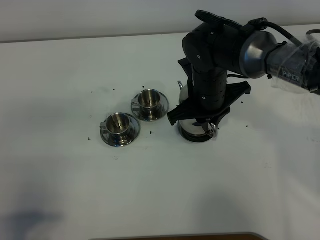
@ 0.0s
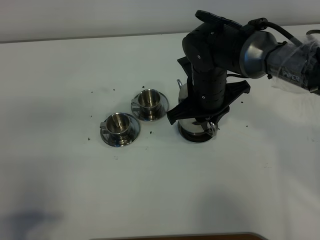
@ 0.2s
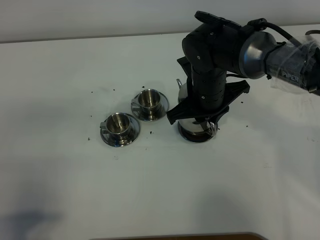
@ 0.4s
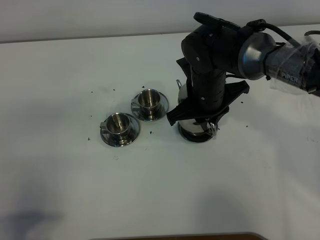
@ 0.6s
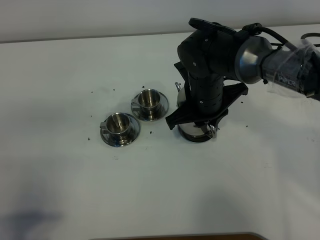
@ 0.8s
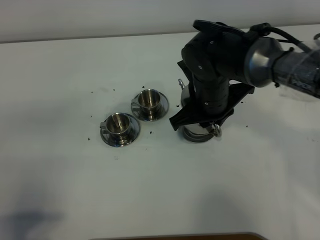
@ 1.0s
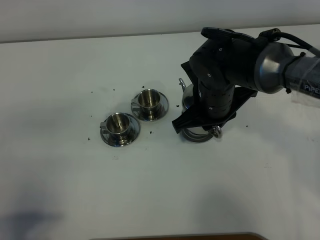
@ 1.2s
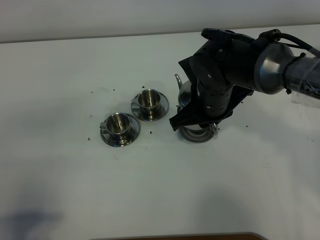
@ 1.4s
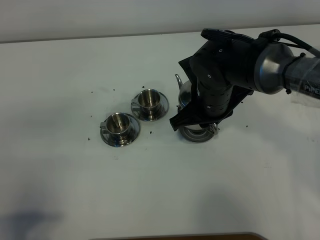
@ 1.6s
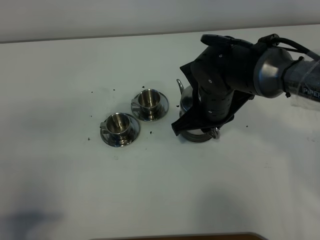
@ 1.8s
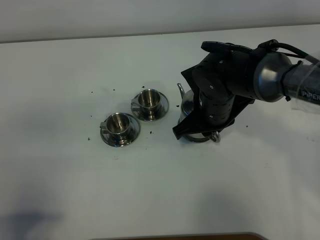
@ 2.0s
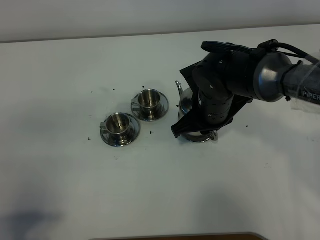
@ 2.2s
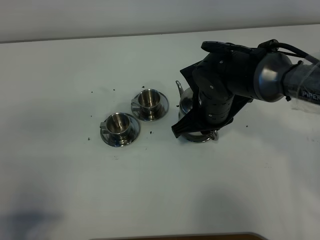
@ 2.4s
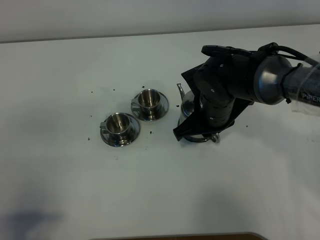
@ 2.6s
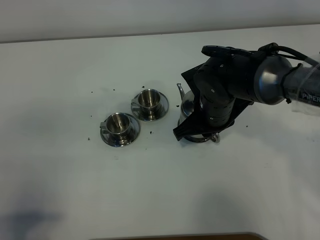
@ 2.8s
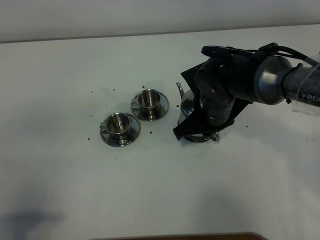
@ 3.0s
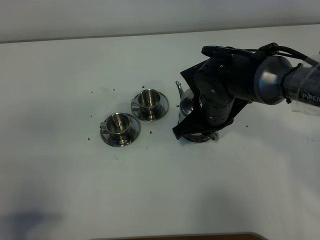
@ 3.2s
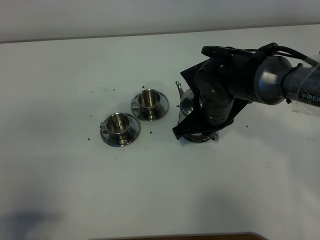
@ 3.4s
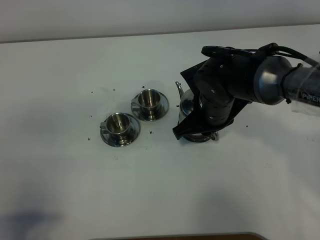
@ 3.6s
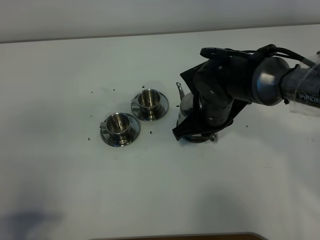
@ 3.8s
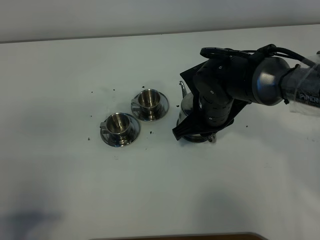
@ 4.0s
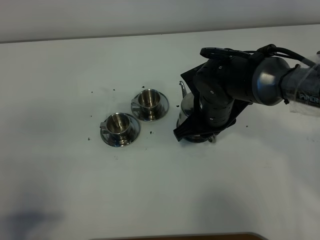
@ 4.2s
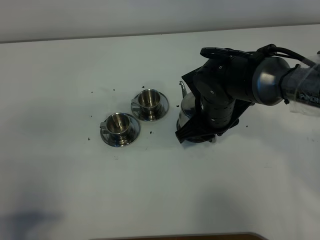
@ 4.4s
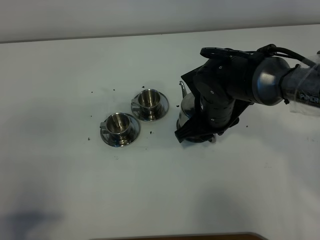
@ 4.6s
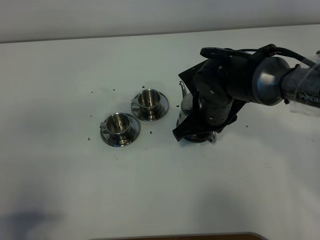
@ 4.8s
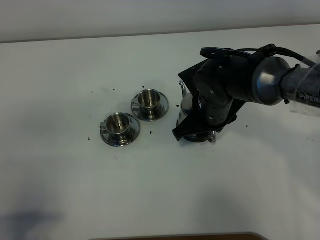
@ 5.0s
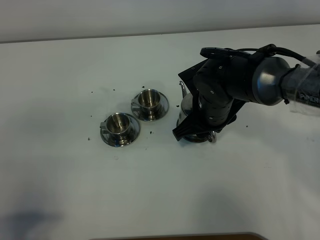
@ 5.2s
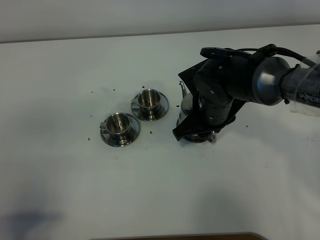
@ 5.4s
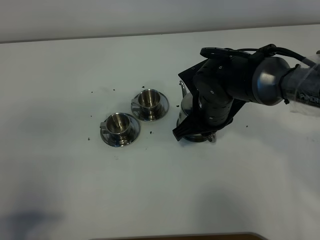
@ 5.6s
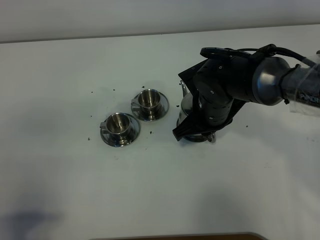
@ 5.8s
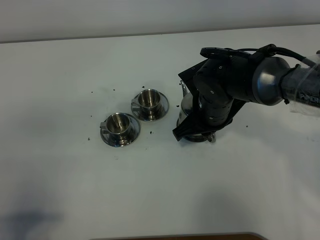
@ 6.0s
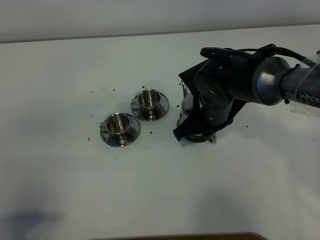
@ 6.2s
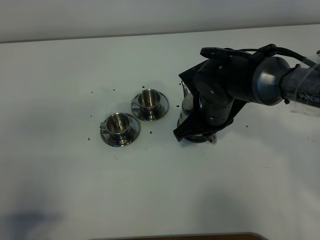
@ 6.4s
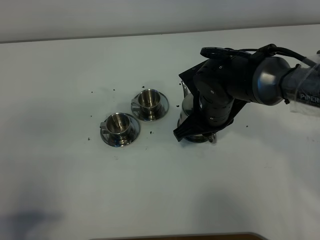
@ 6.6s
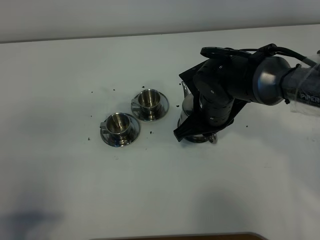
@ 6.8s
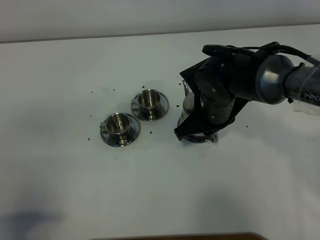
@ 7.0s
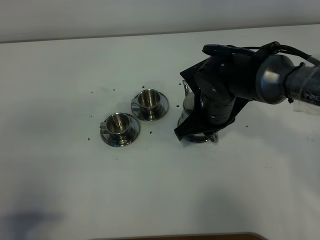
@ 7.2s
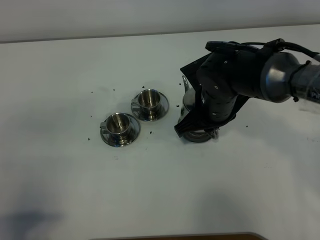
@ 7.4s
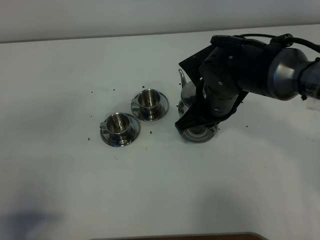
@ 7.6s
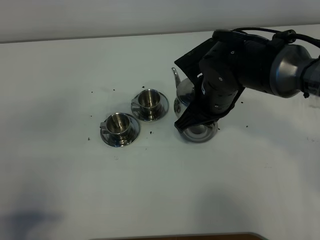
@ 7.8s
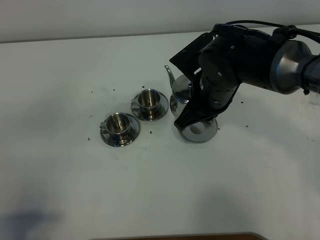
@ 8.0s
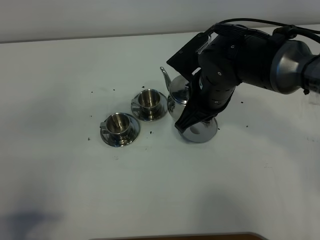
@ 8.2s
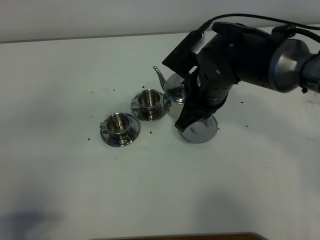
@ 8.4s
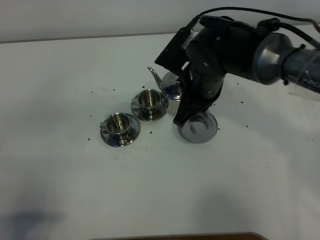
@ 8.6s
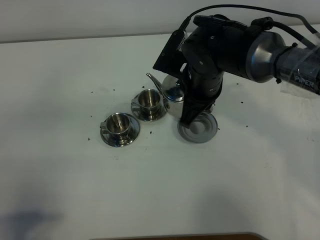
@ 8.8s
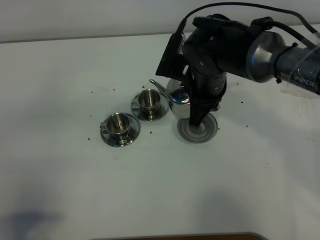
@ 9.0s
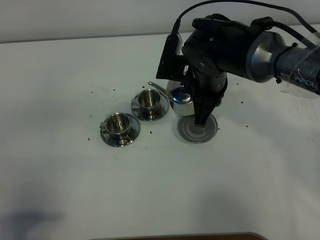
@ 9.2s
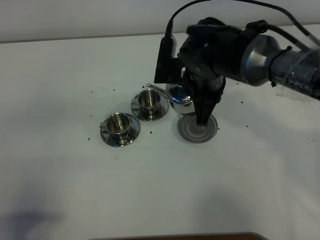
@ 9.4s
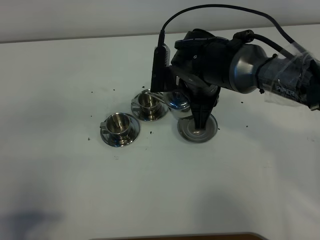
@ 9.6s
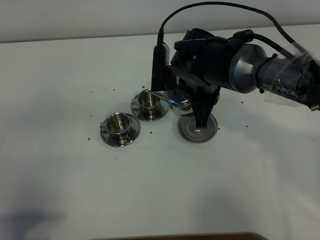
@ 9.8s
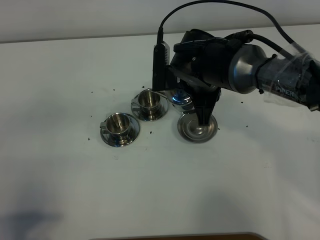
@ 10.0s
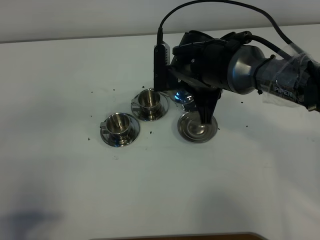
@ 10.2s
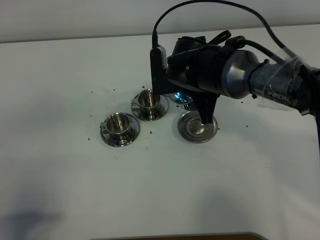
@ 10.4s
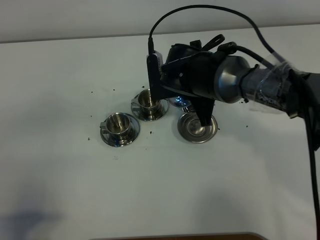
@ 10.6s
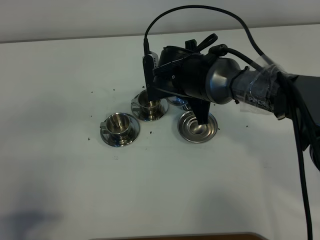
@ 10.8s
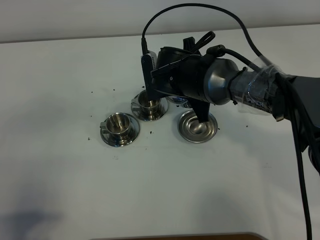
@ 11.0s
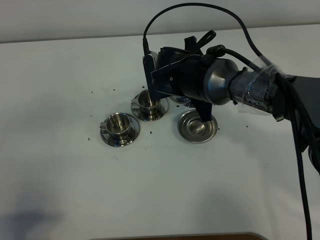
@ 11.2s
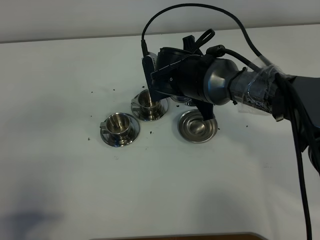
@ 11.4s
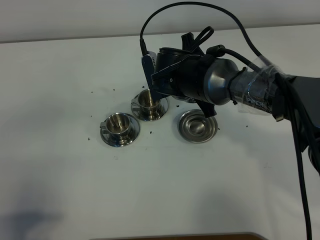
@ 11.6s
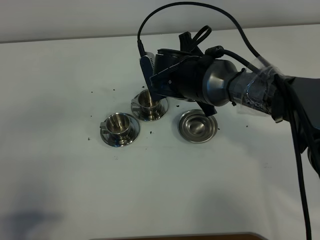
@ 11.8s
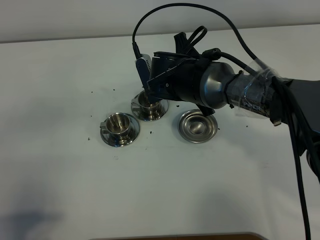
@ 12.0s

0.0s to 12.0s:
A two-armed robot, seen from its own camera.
Task of the whole recording: grasp the stainless steel teapot and pour the tea into the two stainless steel teacups one by one, put the stainless steel teapot back in its original place.
Step, 0.0s to 7.6s: Pick up the teapot with the right gripper.
0.0s to 3.0s: There are only small adjustments of the grippers.
3.0s to 4.4s: The right gripper opens up.
4.4s to 6.0s: The right gripper closes its fingers.
6.0s to 7.6s: There are only small adjustments of the grippers.
10.4s to 12.0s: The grippers move only a little.

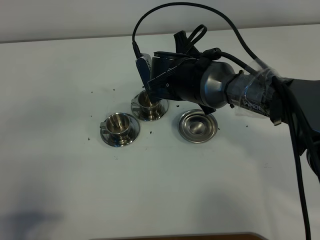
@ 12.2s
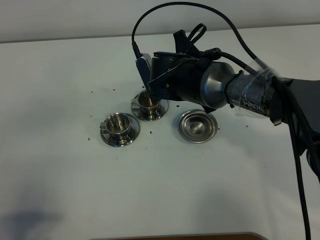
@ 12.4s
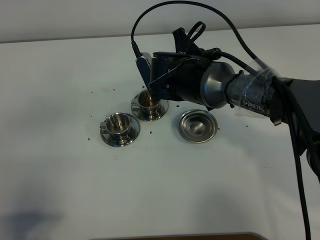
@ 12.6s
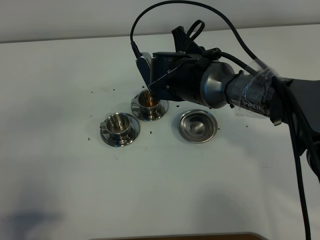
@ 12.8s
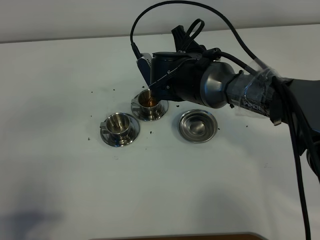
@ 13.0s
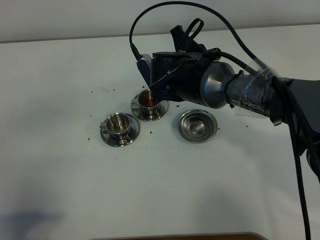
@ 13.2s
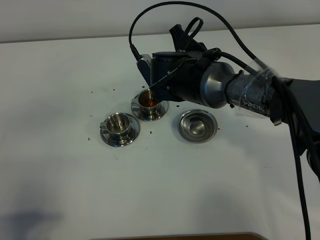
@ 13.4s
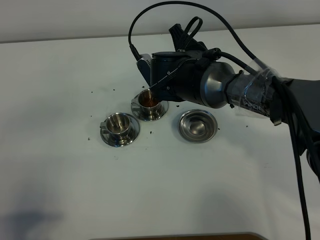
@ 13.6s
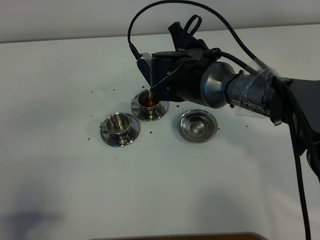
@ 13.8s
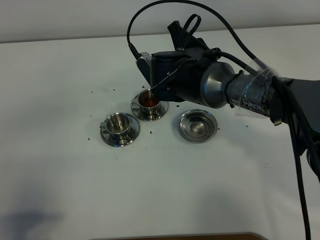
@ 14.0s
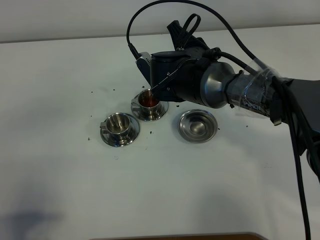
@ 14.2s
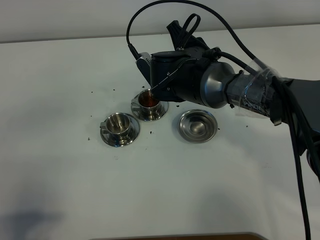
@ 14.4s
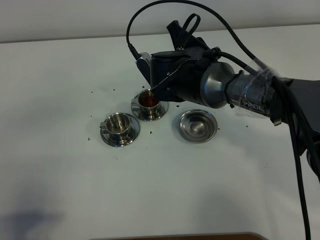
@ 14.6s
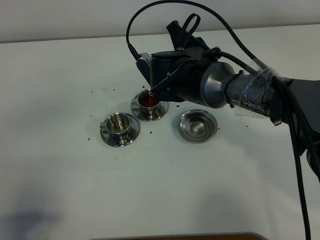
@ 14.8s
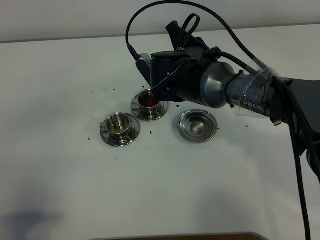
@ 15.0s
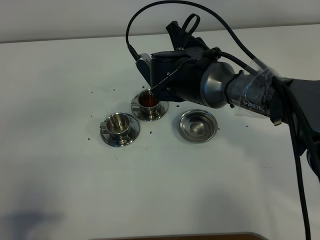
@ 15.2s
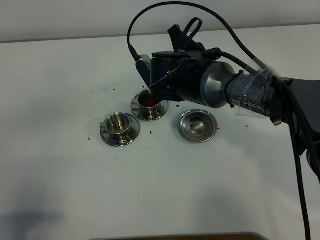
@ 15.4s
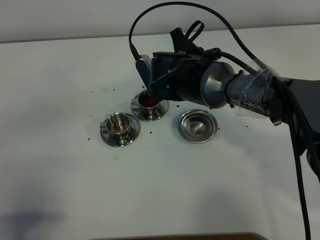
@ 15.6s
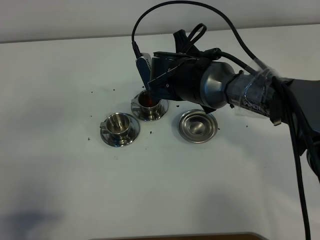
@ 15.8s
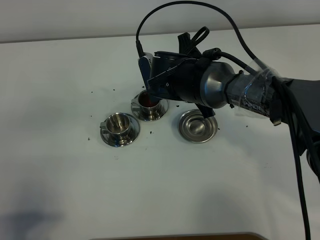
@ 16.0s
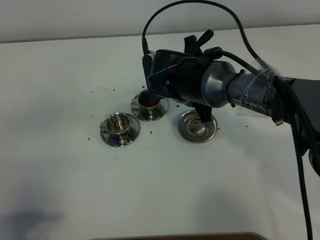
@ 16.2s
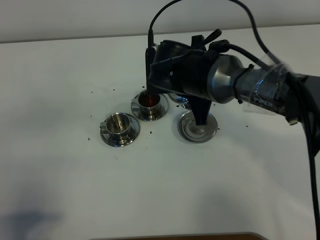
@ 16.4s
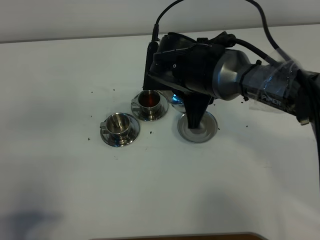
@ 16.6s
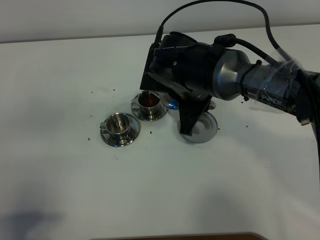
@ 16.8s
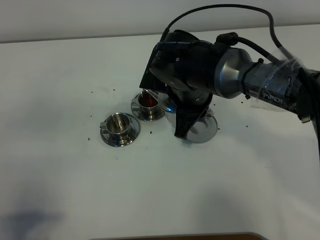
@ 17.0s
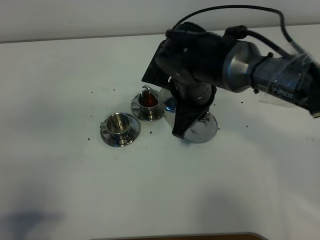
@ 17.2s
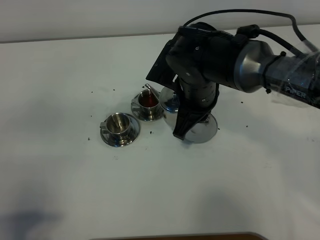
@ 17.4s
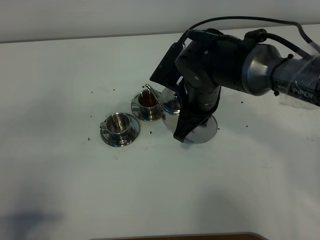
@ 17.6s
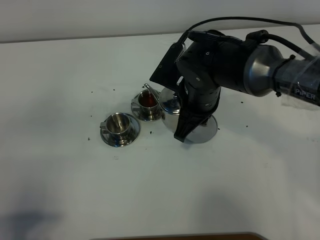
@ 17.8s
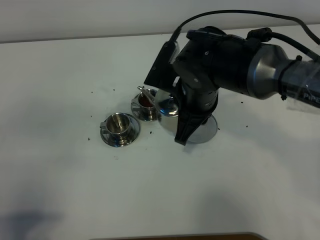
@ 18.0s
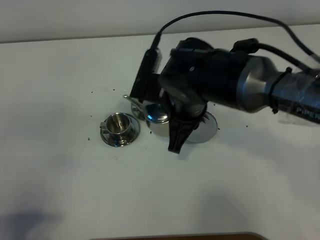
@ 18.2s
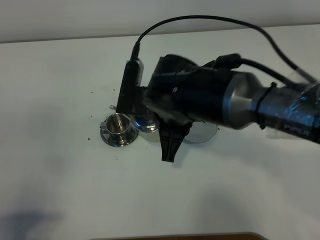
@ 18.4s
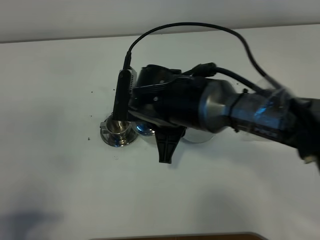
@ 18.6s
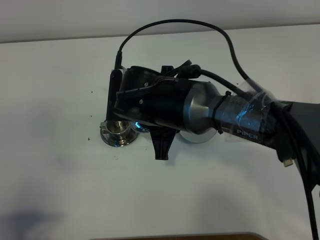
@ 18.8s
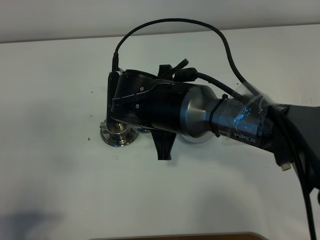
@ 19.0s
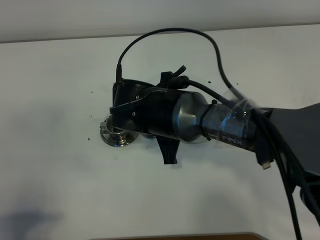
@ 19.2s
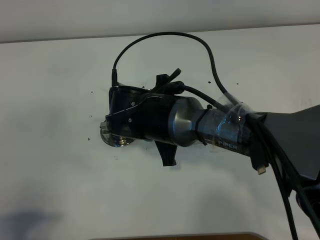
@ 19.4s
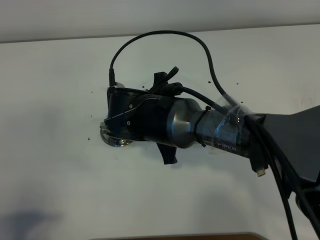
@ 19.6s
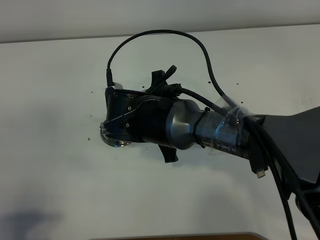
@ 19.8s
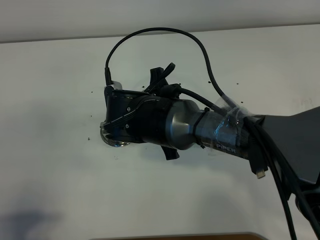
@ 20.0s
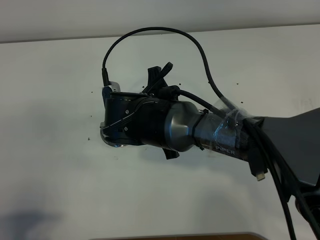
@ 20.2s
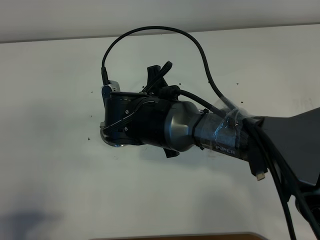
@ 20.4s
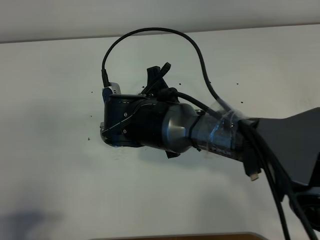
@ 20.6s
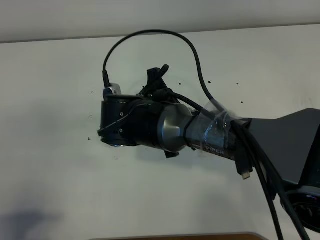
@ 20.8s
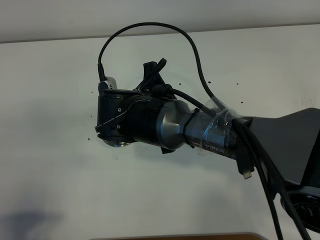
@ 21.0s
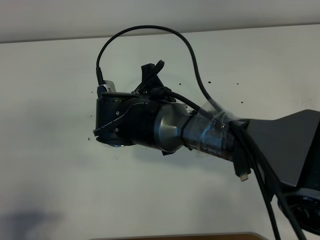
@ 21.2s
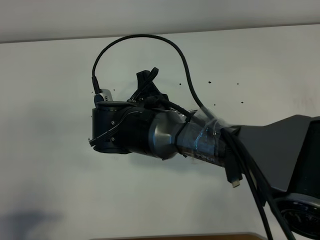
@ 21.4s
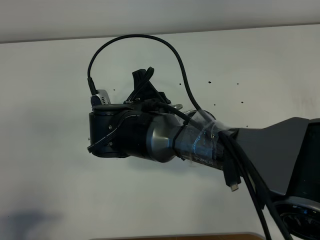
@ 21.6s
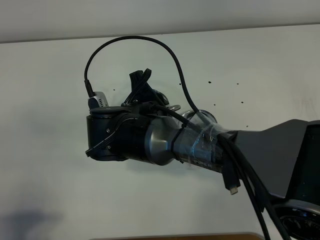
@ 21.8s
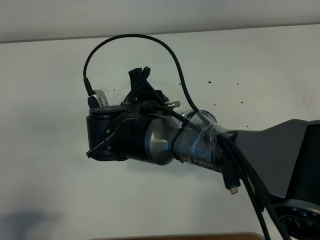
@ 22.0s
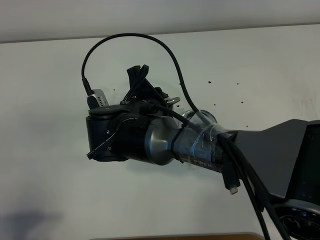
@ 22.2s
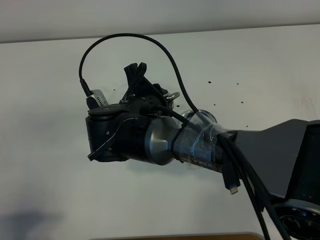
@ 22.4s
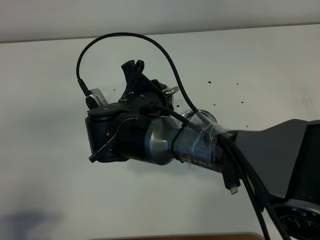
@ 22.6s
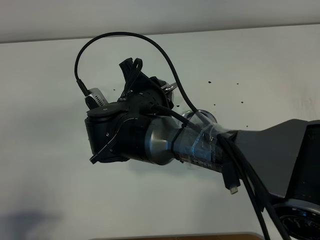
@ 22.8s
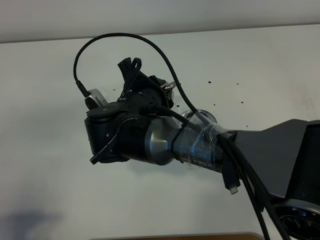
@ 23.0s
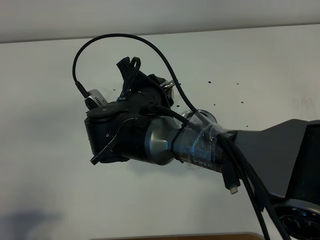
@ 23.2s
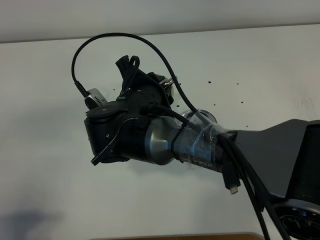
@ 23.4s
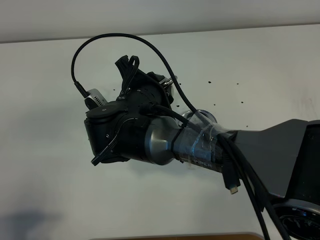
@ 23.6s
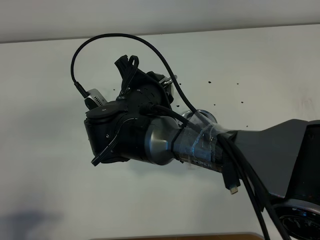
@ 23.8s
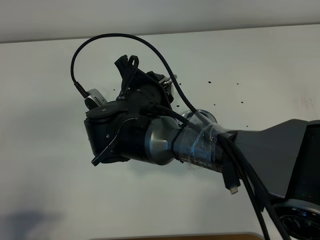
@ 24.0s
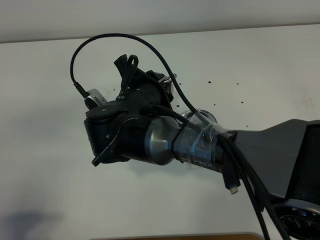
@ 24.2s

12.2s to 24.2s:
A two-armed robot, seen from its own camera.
Task of the whole recording: grasp the stainless steel teapot and pour the tea into the two stainless steel teacups one by one, put the stainless steel teapot back in its original place.
12.2s to 13.8s: The grippers make only small movements.
13.8s to 15.2s: Both grippers stay about where they are.
16.6s to 18.2s: The right gripper goes roughly 5 cm backward.
18.2s to 19.8s: The right gripper ends up about 5 cm from where it was.
19.8s to 21.2s: The grippers move only a little.
21.2s to 22.6s: The grippers move only a little.
22.6s to 24.2s: The grippers stay close to where they were, moving slightly.
